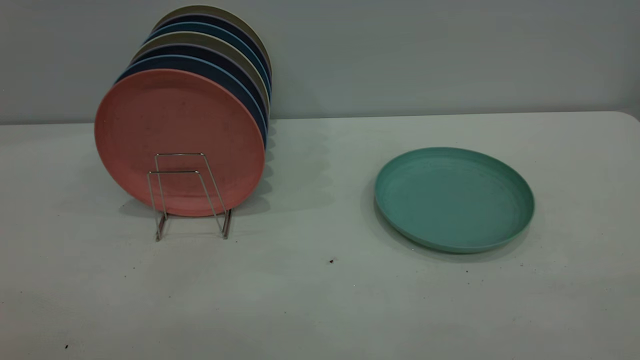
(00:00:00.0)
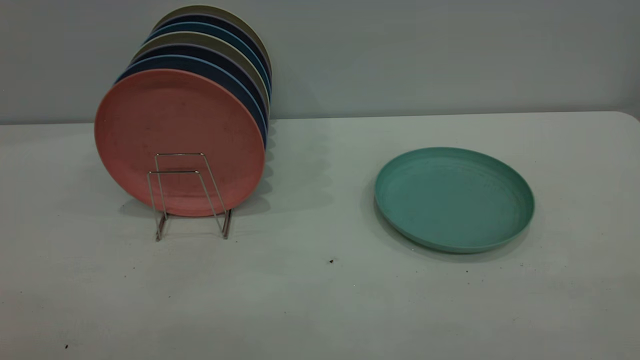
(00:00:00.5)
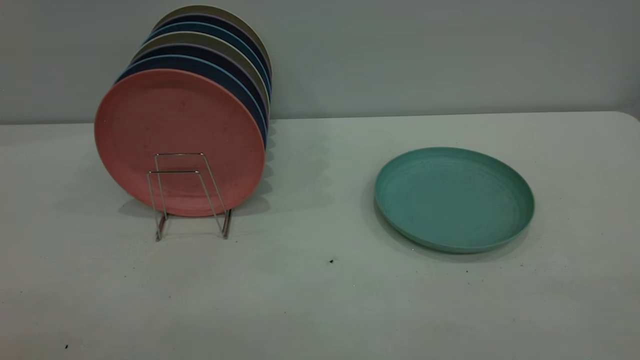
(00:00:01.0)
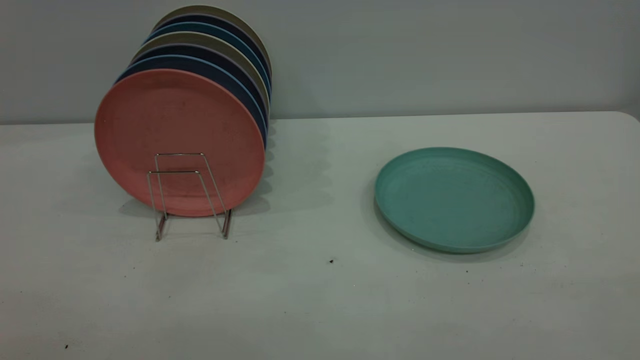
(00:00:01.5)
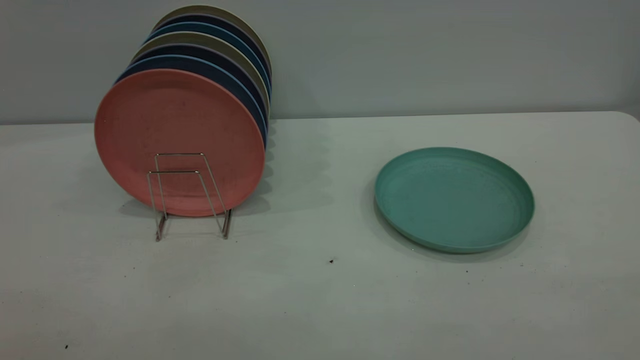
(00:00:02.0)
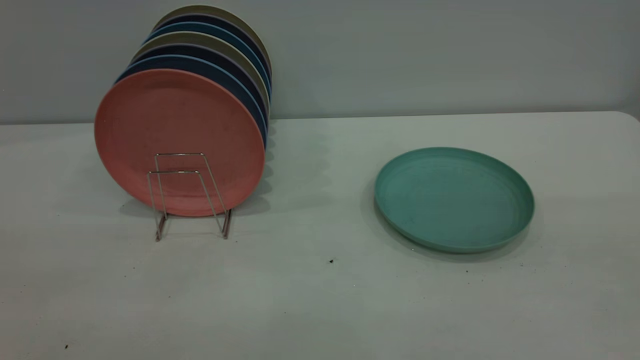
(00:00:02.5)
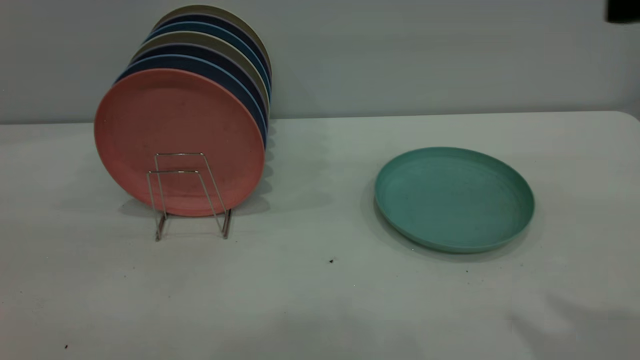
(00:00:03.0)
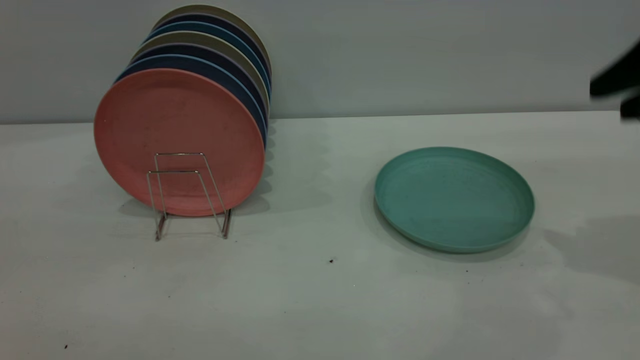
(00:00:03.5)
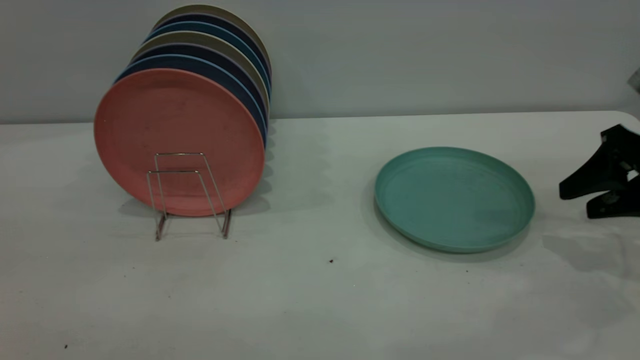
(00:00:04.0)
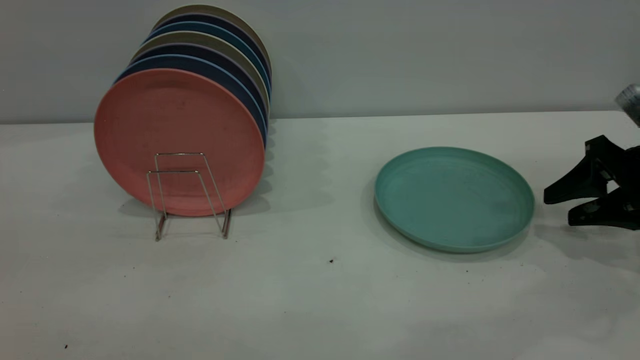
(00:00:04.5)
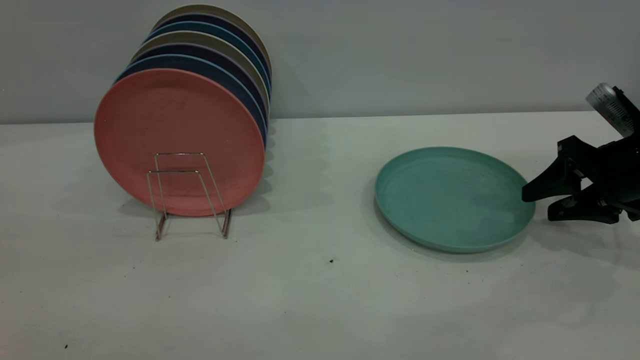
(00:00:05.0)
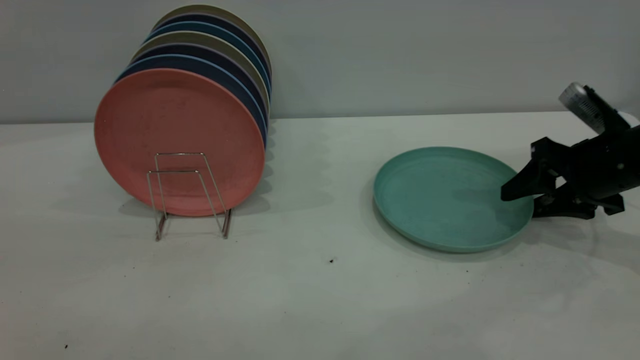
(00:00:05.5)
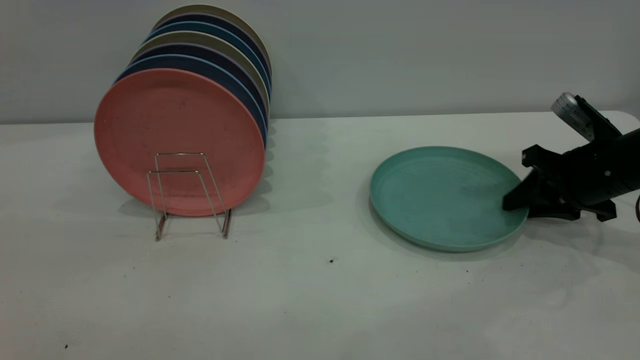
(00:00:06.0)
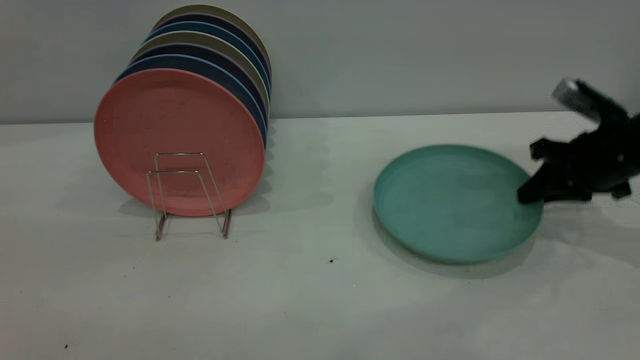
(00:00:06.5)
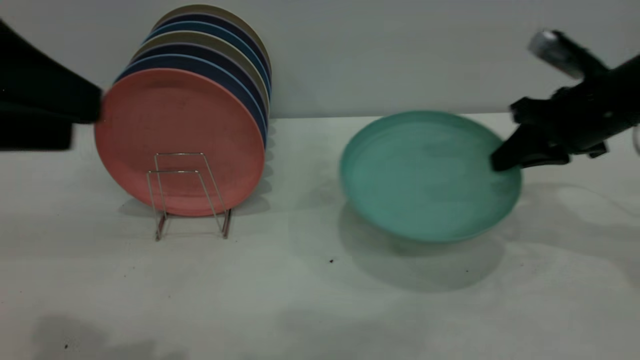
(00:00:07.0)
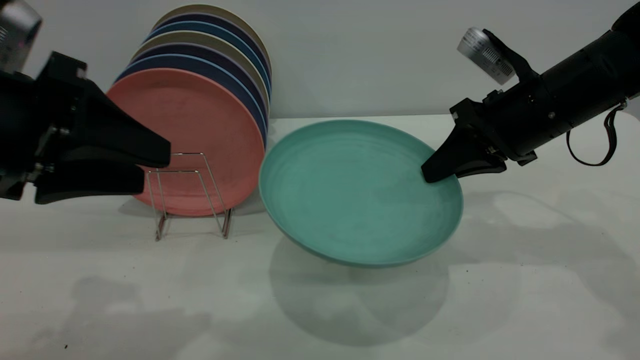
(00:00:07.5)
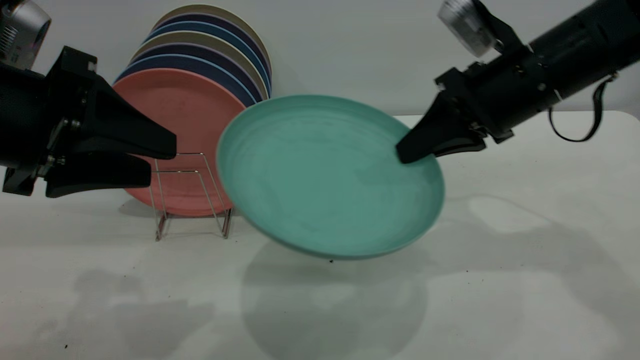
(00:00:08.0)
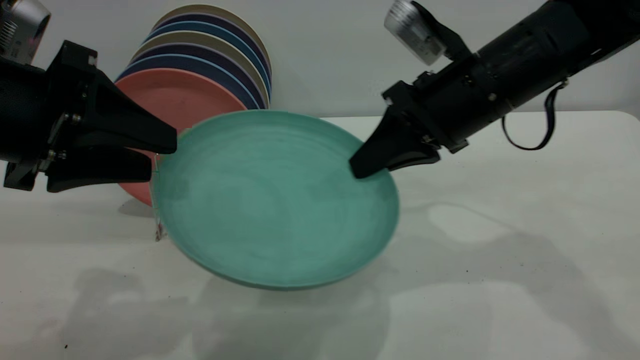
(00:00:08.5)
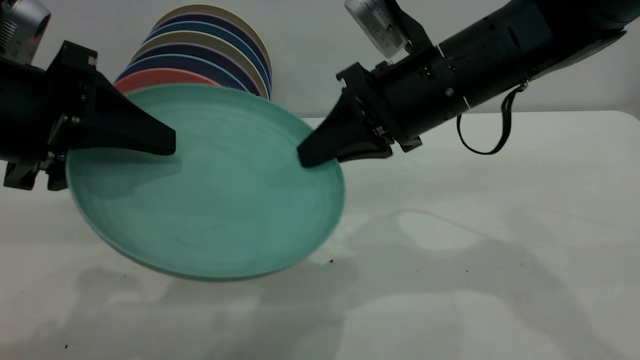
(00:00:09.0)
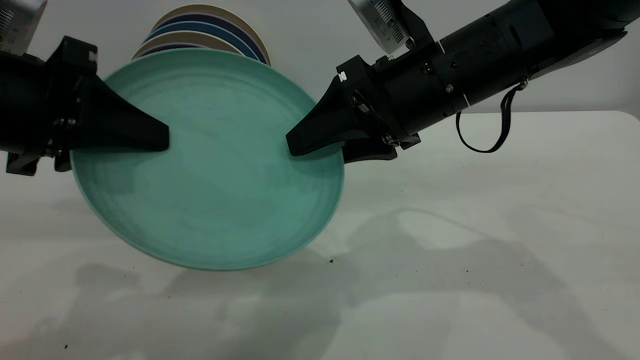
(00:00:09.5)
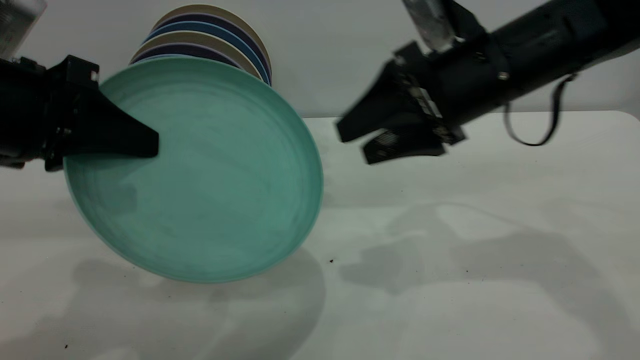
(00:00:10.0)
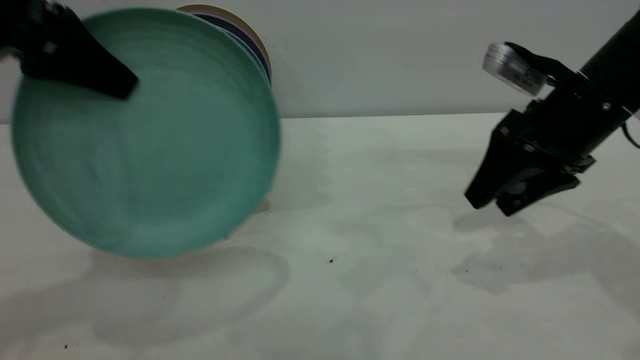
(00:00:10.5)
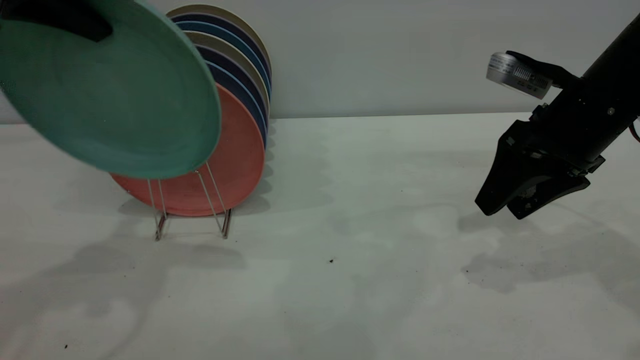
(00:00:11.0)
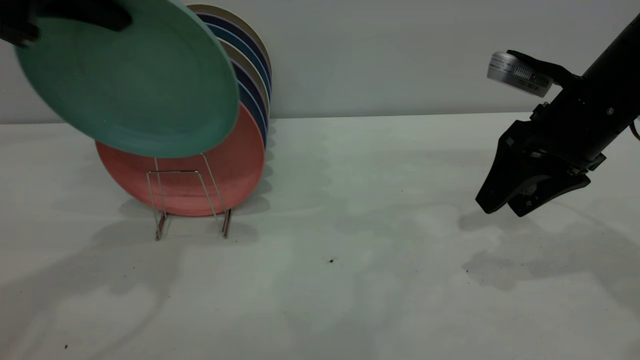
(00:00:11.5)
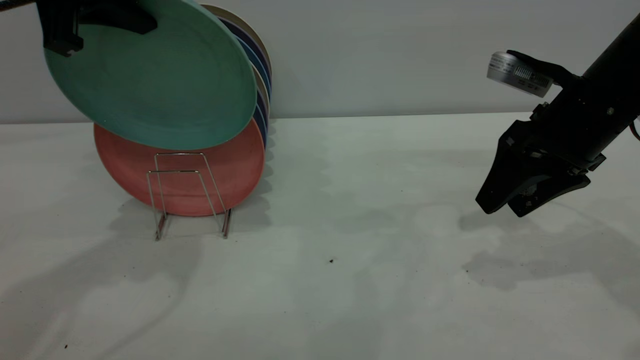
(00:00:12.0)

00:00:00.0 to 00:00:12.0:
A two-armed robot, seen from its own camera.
Task of the whole recording: the right gripper grasp the green plate, the right gripper pass the green plate to the left gripper, and the left gripper place the green plate on the plate rack.
Step, 00:00:00.0 to 00:00:06.5: Pick up the plate with the right gripper.
Step, 00:00:07.0 to 00:00:09.5: Pass the plate from the right gripper to the left gripper.
00:00:00.0 to 00:00:02.0: Both grippers stay put.
00:00:02.0 to 00:00:04.0: The right gripper goes about 40 cm forward and downward.
00:00:04.0 to 00:00:06.0: The right gripper moves forward and downward, approximately 5 cm, and closes.
00:00:06.0 to 00:00:08.0: The right gripper goes about 20 cm to the left and upward. Meanwhile the left gripper travels downward and forward by some 20 cm.
00:00:08.0 to 00:00:10.0: The left gripper closes its fingers. Meanwhile the right gripper goes to the left and returns, roughly 10 cm each way, and opens up.
00:00:10.0 to 00:00:12.0: The left gripper moves forward and upward, approximately 15 cm; the right gripper goes about 10 cm to the right.

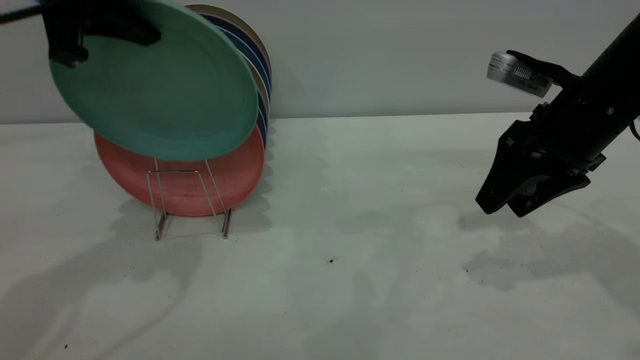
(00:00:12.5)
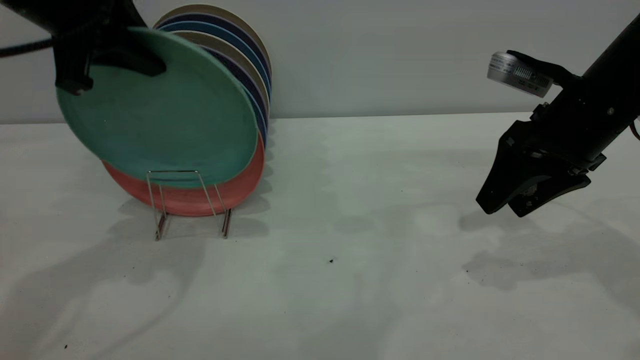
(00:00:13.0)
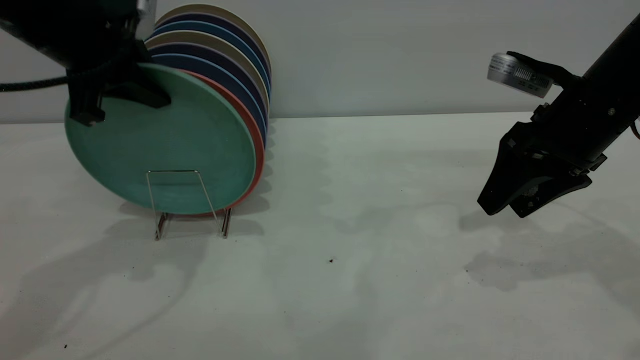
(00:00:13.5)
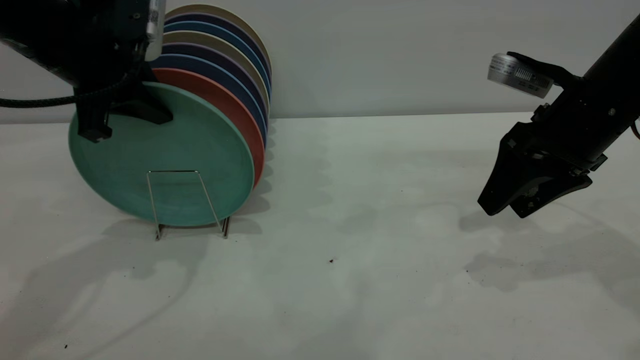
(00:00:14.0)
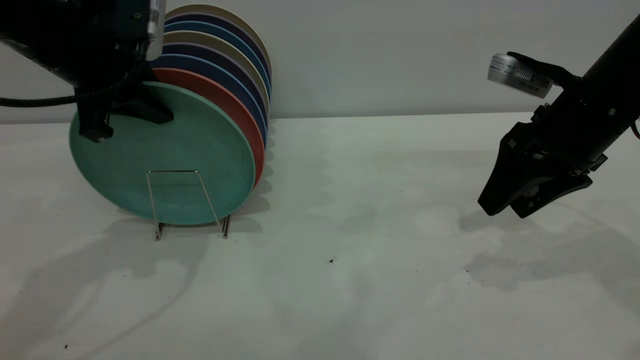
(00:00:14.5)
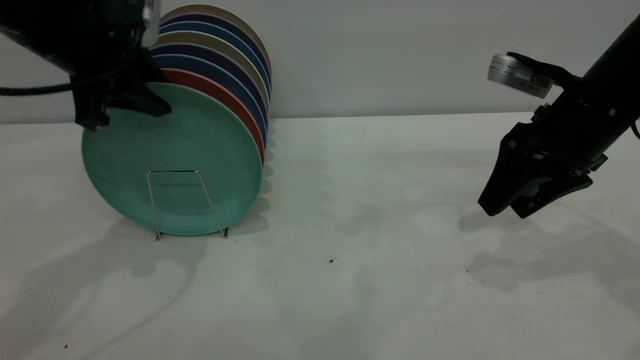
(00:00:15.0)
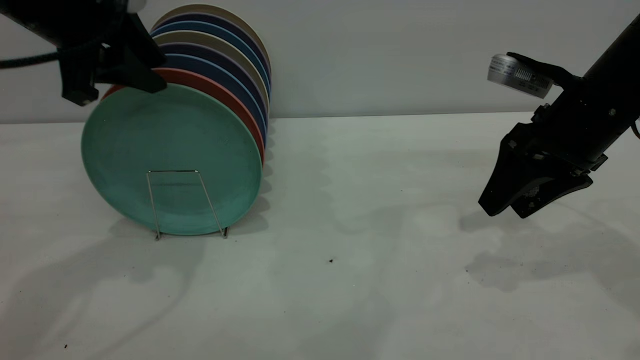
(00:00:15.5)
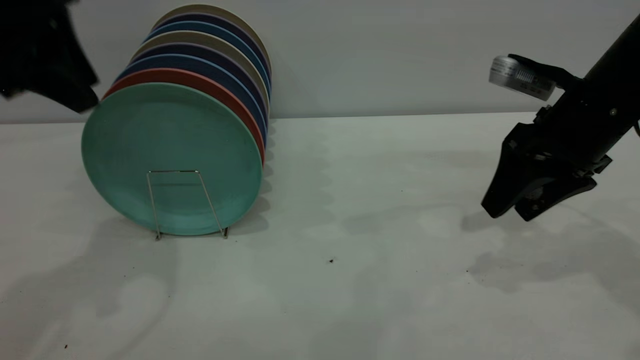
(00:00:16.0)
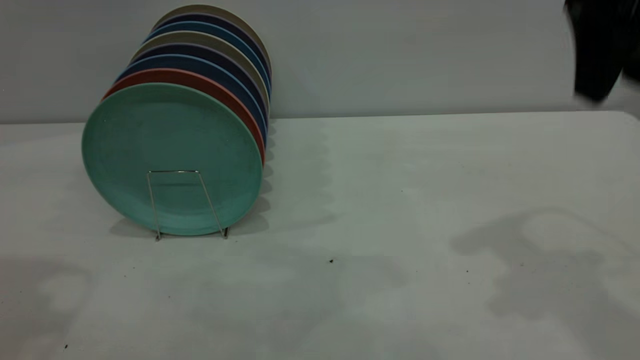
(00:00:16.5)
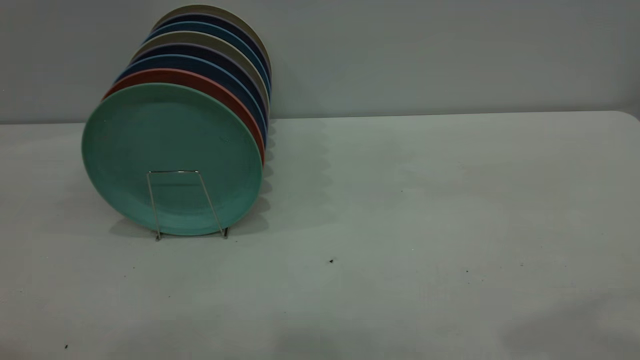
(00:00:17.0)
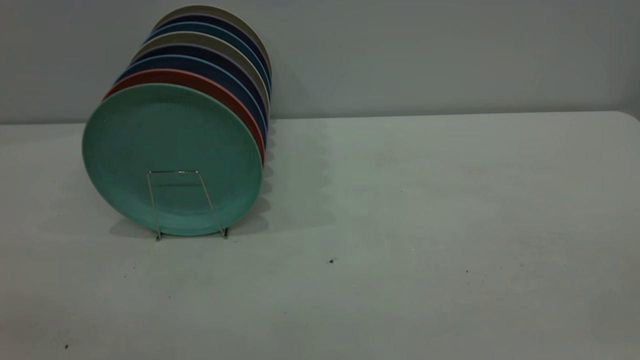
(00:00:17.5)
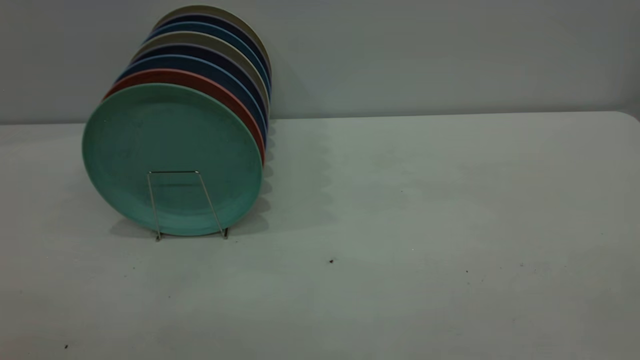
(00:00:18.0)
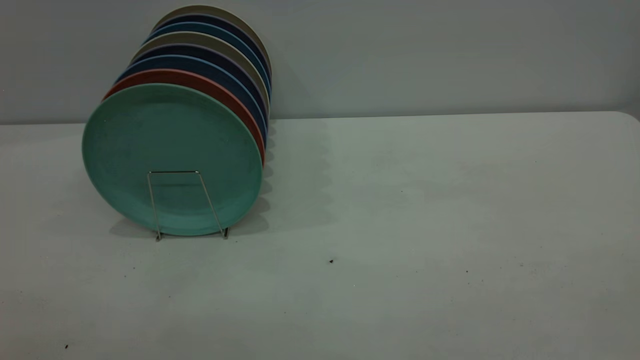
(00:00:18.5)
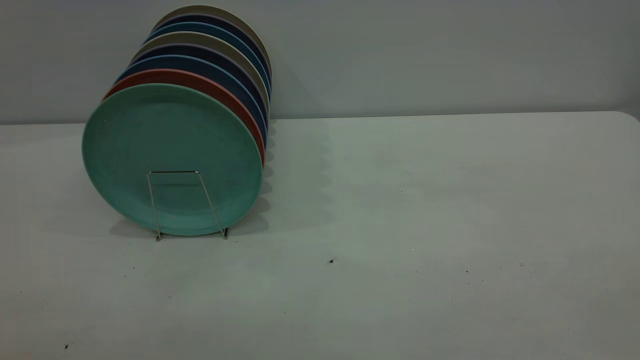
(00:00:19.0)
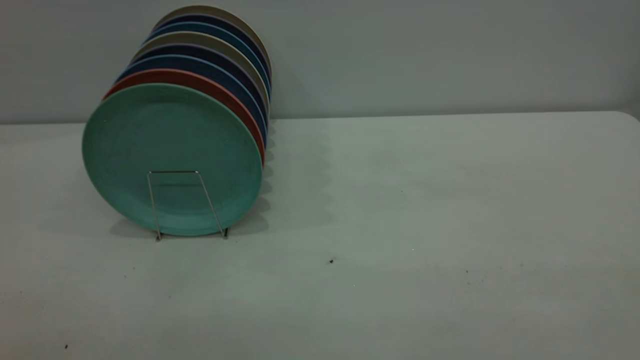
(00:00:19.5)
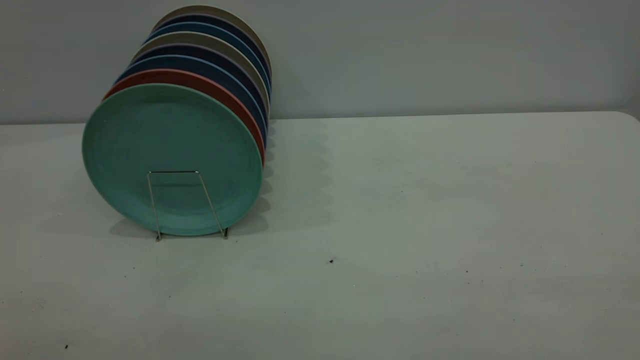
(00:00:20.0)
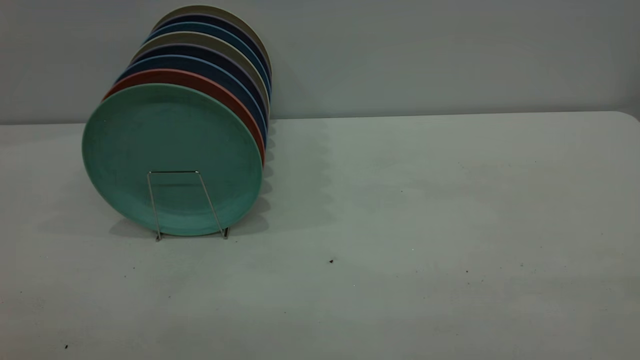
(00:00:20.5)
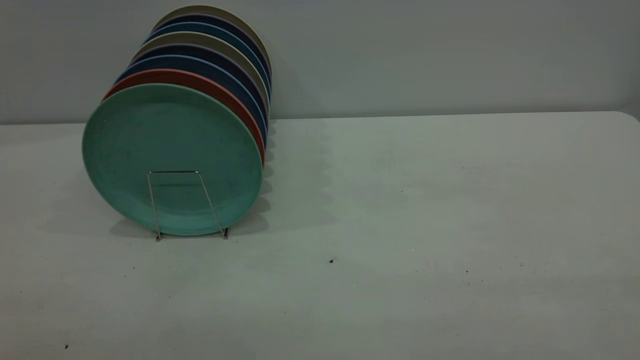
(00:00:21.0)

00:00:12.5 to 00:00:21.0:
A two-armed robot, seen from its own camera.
Task of the whole recording: the right gripper grasp the green plate, the right gripper pass the green plate to the left gripper, and the left gripper place the green plate on the plate rack.
Step, 00:00:12.5 to 00:00:15.5: Place the plate on the shelf.
00:00:12.5 to 00:00:14.5: The left gripper is displaced downward by roughly 5 cm.
00:00:14.5 to 00:00:16.5: The left gripper heads upward and backward, covering approximately 20 cm, and opens its fingers, while the right gripper moves upward, some 20 cm.
00:00:16.5 to 00:00:19.0: The right gripper is displaced backward by some 30 cm.
